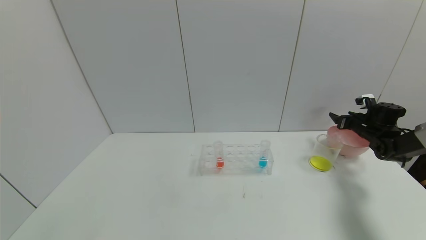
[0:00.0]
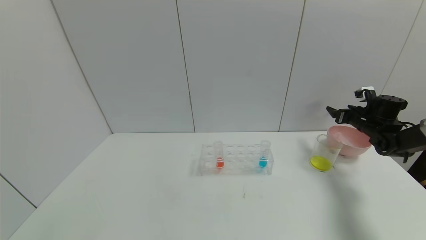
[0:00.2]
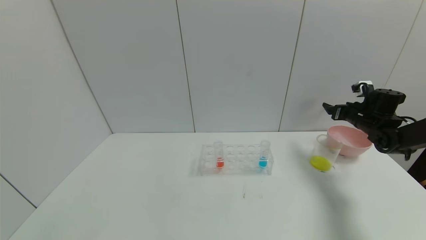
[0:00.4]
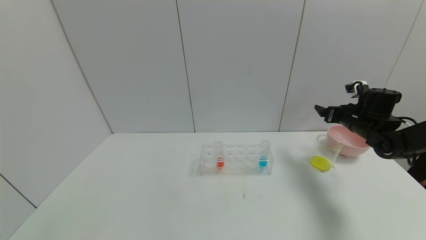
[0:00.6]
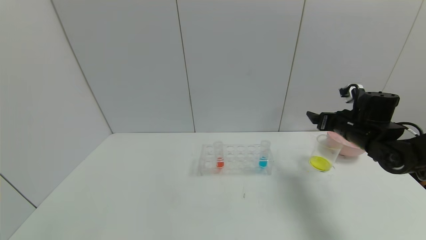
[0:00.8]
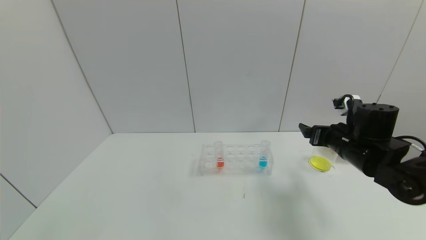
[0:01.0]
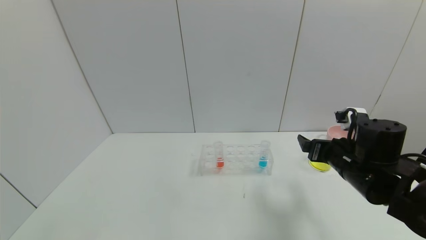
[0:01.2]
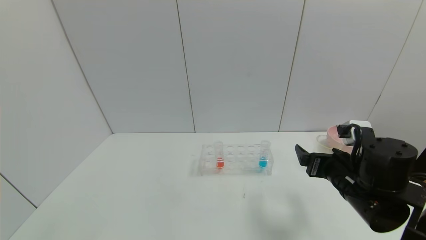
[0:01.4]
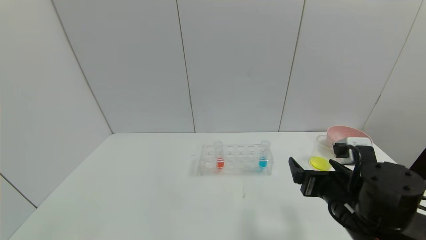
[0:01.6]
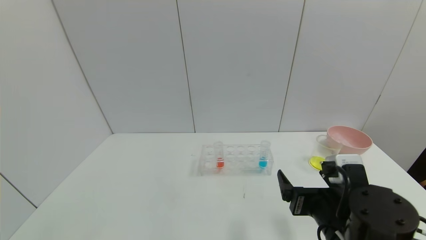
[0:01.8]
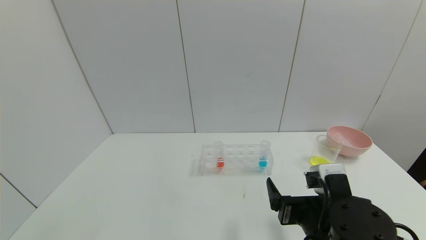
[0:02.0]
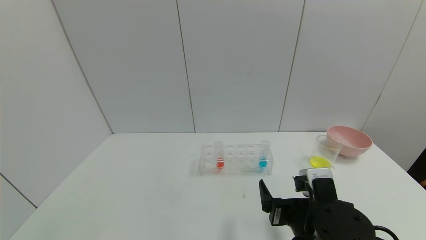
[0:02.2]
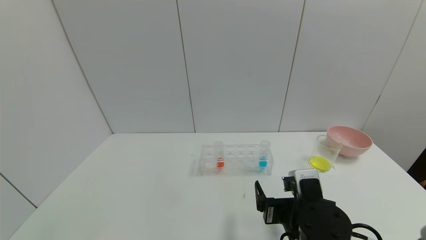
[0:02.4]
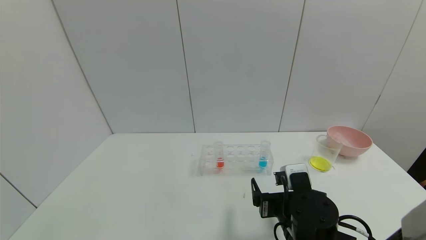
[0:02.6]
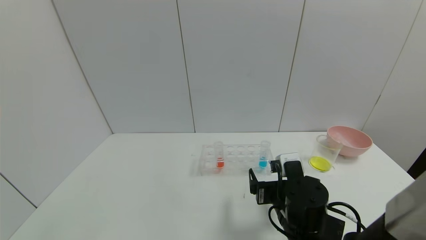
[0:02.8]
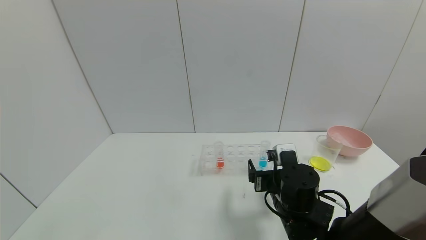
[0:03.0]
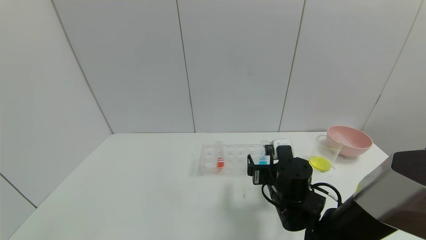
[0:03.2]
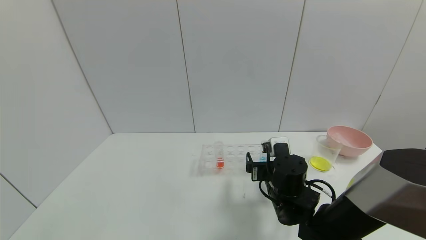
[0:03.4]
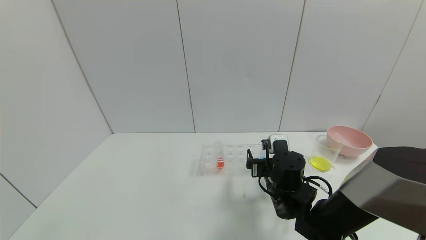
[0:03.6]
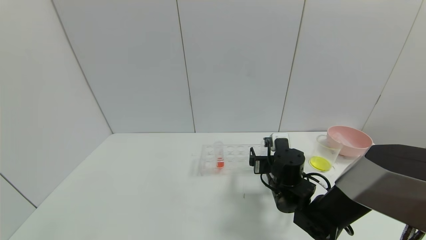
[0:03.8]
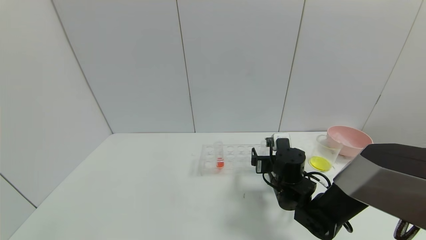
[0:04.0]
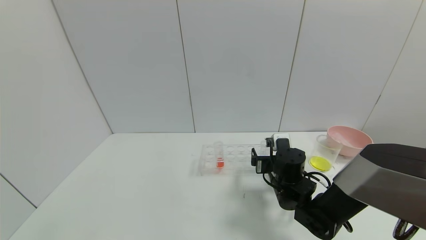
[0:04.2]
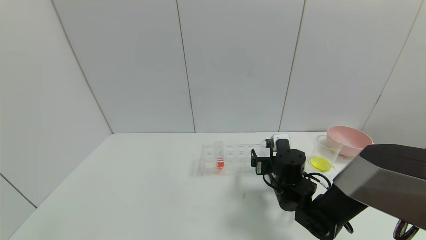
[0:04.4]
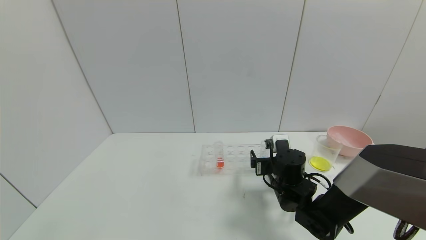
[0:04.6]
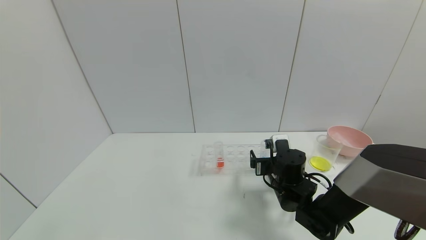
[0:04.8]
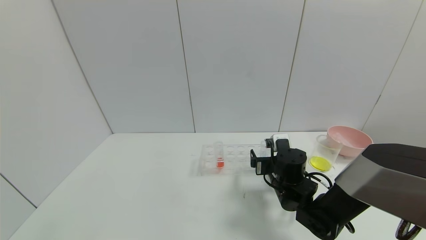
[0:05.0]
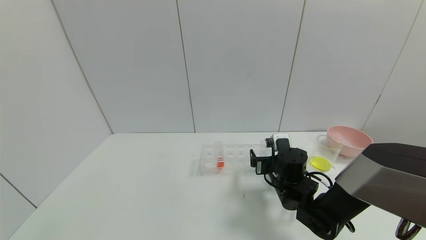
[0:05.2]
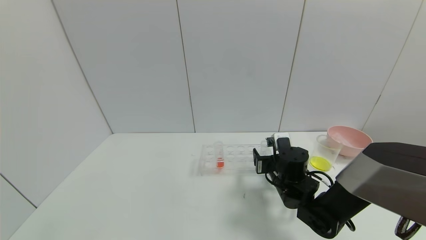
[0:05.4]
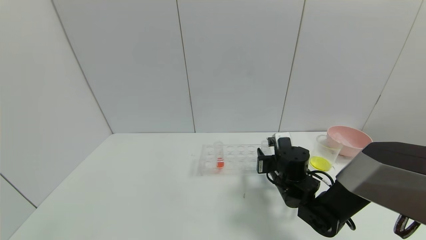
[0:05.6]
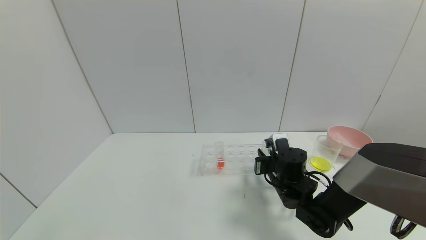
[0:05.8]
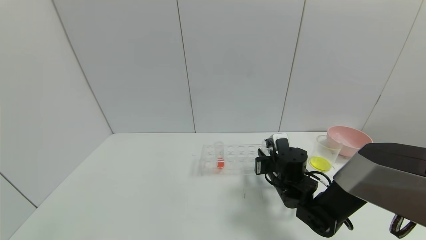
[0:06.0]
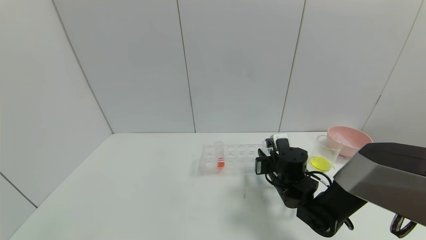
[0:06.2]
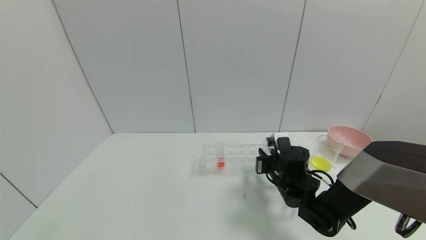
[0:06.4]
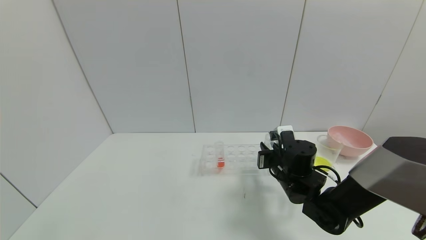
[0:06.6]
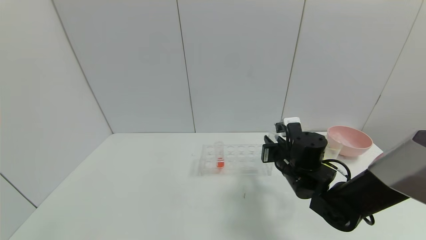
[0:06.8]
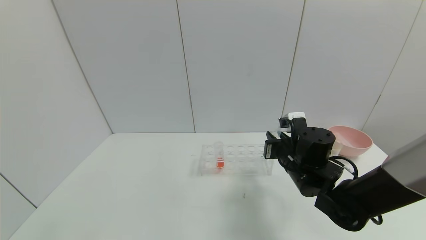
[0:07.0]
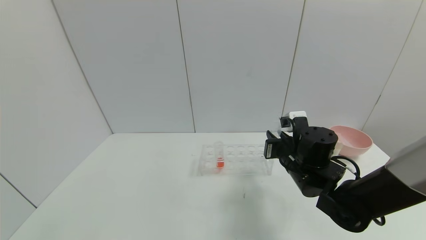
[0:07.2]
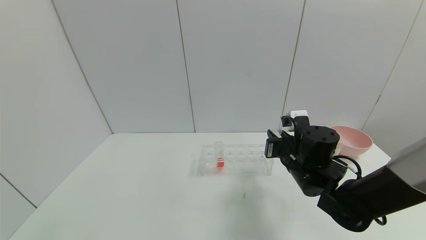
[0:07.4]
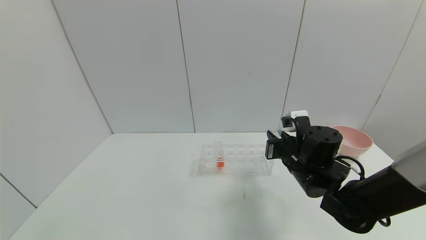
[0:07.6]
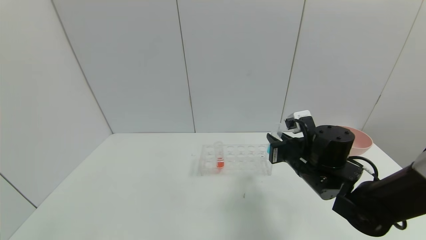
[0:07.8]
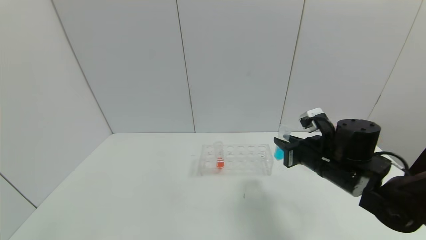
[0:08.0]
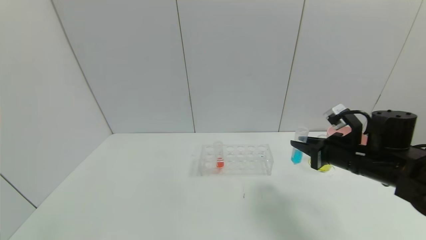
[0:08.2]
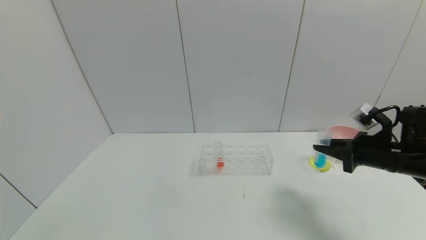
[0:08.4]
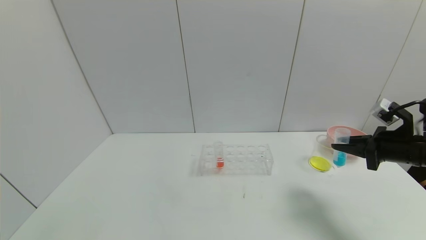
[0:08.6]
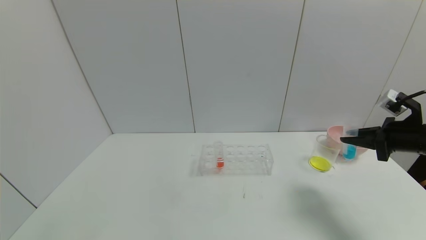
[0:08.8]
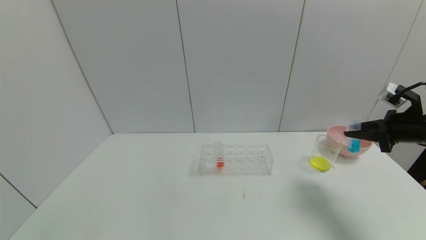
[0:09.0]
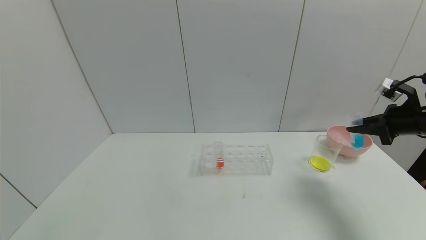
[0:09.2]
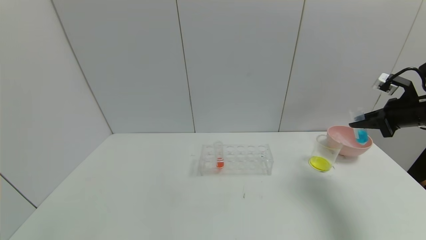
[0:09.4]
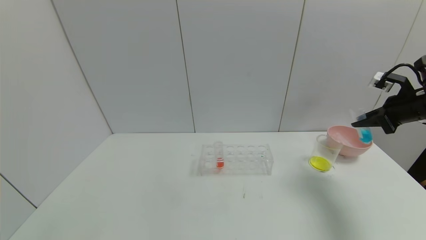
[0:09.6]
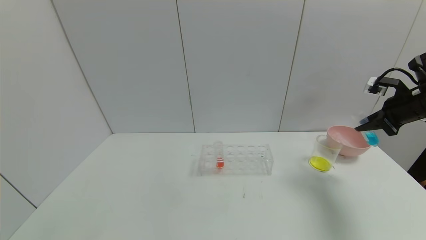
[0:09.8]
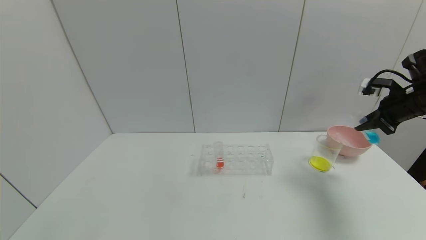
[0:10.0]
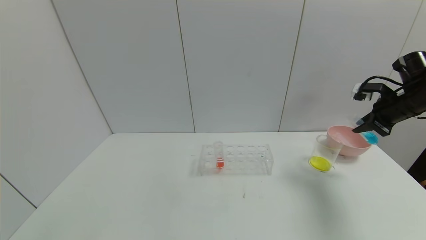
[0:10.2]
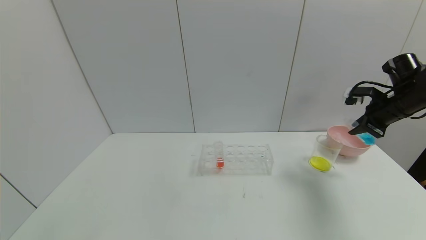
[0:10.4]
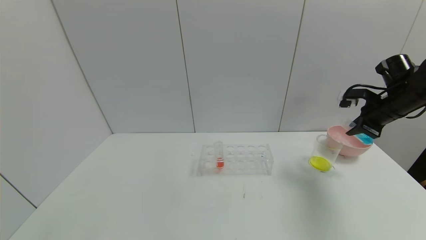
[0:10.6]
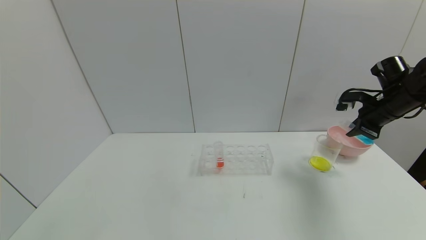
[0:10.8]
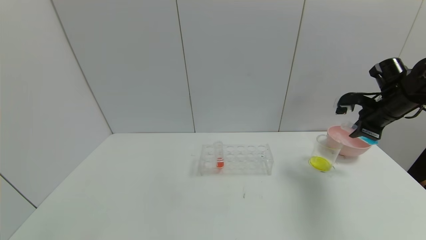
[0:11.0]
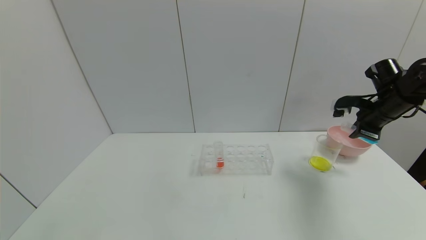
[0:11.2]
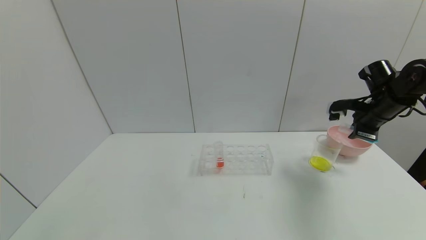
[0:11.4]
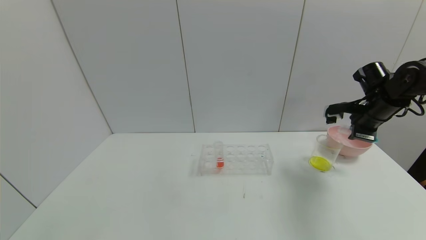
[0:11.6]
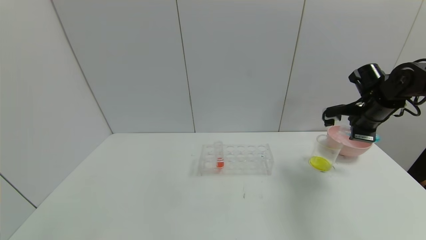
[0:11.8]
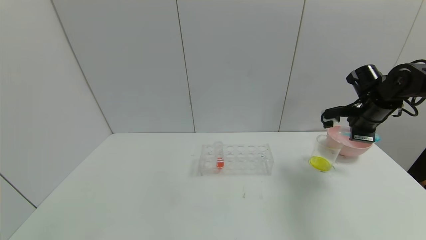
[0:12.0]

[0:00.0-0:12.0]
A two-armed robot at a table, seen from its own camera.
Task of the whole recording: pick up the test tube with yellow pigment and the test tube with blue pigment by grippers and pour them into the beaker.
Step, 0:01.4 to 0:08.0: Pick up the test tube containing the blue reagent with right gripper.
0:00.0 to 0:01.6: The right gripper travels backward and to the left by roughly 40 cm.
0:01.6 to 0:03.0: The right gripper is displaced to the left, forward and downward by some 10 cm.
0:03.0 to 0:04.4: The right gripper travels forward by about 5 cm.
0:04.4 to 0:06.0: The right gripper closes up.
0:06.0 to 0:07.6: The right gripper heads upward, covering about 5 cm.
0:07.6 to 0:09.0: The right gripper goes approximately 25 cm to the right.
0:09.0 to 0:10.4: The right gripper is displaced forward by some 5 cm.
0:10.4 to 0:12.0: The right gripper changes place by approximately 5 cm.

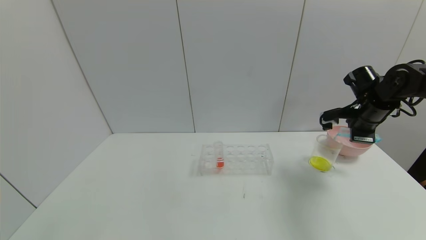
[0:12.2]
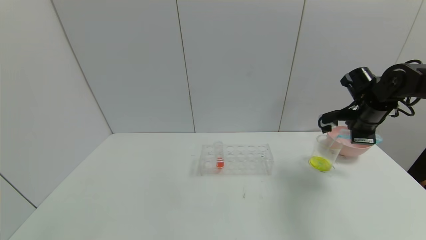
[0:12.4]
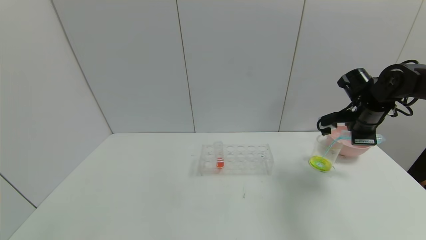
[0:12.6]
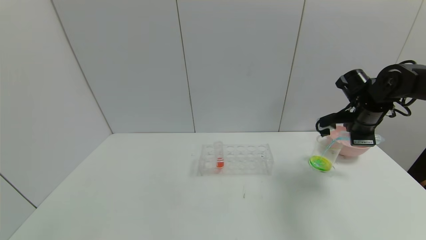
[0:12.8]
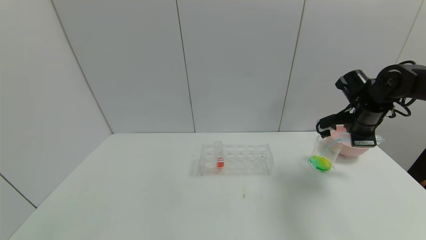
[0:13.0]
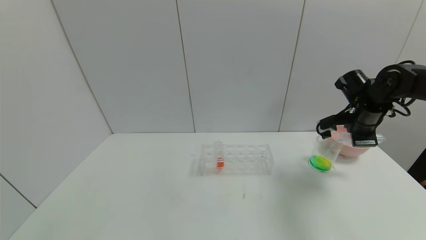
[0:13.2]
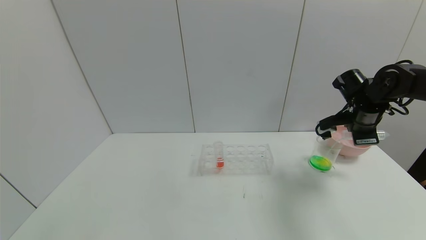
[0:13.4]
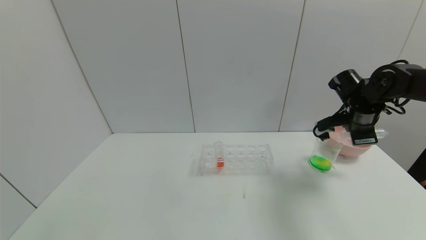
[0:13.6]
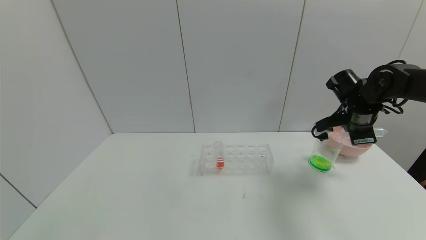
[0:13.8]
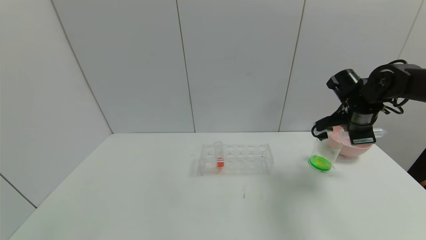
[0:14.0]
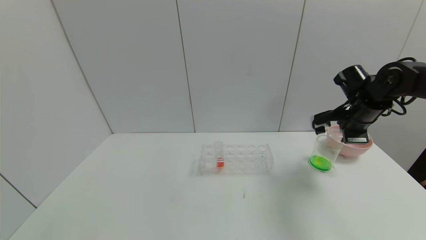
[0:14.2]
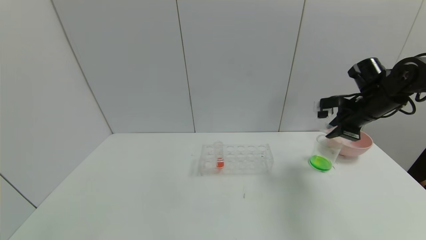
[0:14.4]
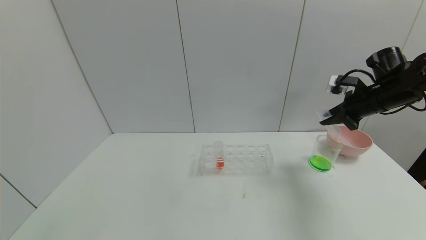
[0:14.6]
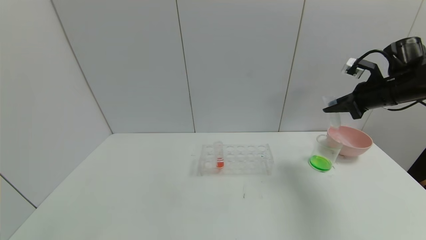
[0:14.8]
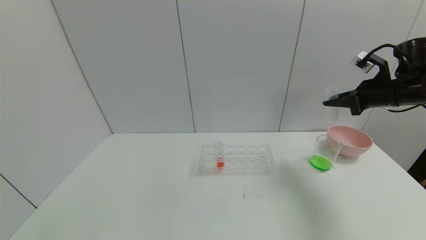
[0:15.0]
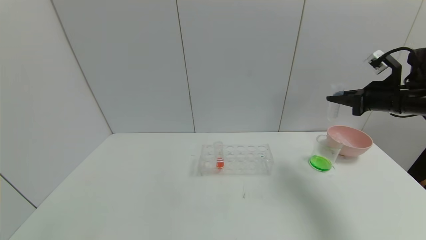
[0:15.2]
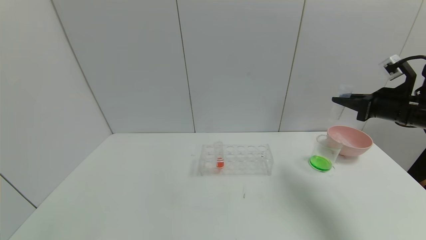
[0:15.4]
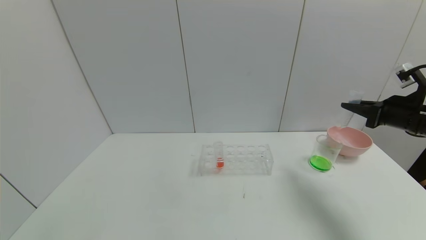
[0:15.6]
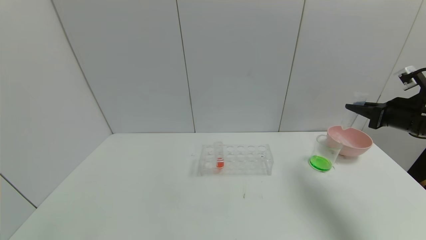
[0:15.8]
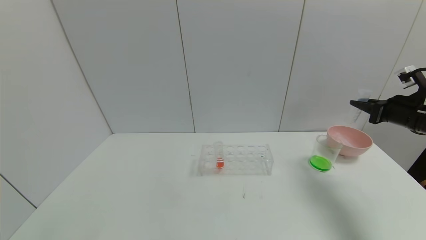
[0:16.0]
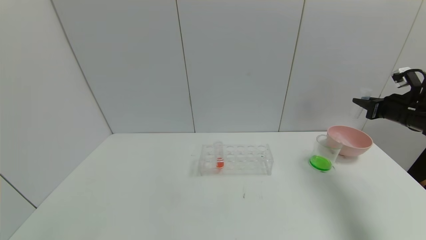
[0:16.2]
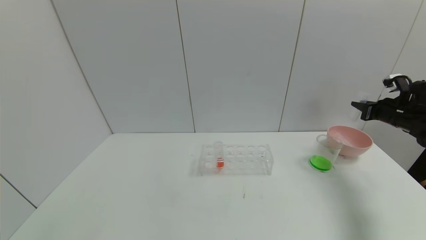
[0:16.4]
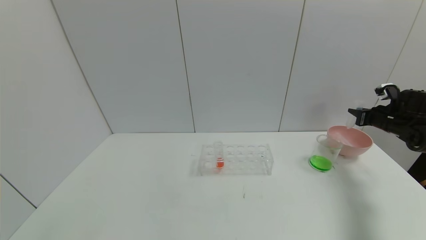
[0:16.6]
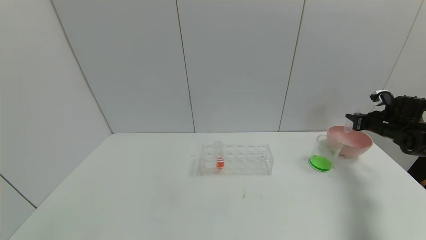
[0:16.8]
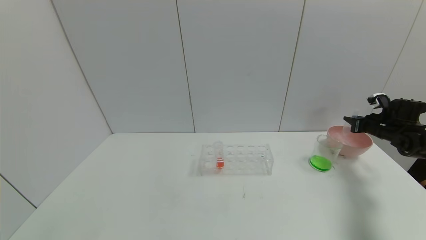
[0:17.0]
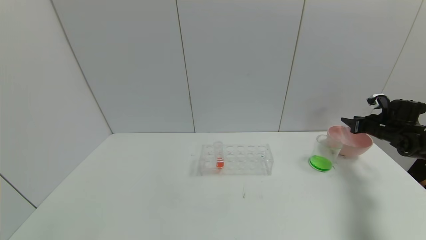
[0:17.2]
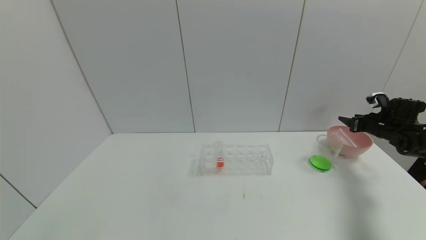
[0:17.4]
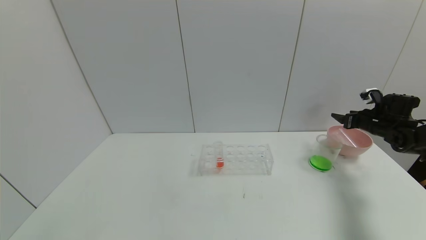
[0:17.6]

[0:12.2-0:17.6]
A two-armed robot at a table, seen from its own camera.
Task of the whole recording: pick up the test tube with yellow pigment and the test tube with blue pigment by grippers and pour them into the beaker.
0:12.2 to 0:13.6: The grippers move only a little.
0:13.6 to 0:15.0: The right gripper moves to the right and upward, roughly 10 cm.
0:15.0 to 0:16.2: The right gripper shifts roughly 10 cm to the right and downward.
0:16.2 to 0:17.6: The right gripper travels forward and downward by approximately 10 cm, and opens.
